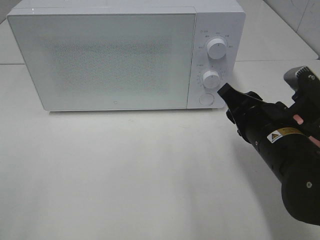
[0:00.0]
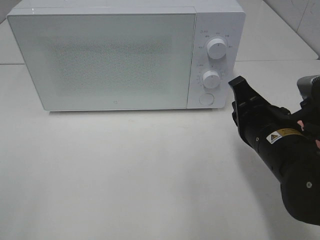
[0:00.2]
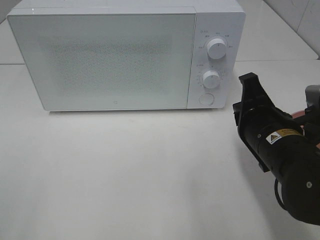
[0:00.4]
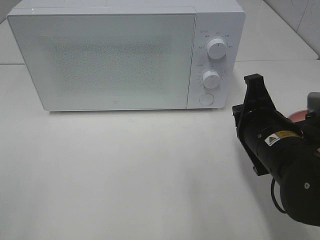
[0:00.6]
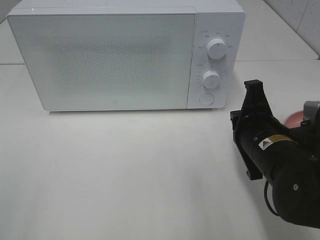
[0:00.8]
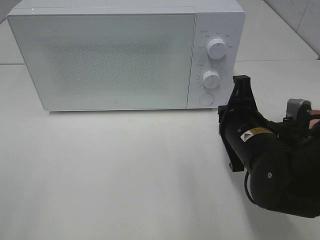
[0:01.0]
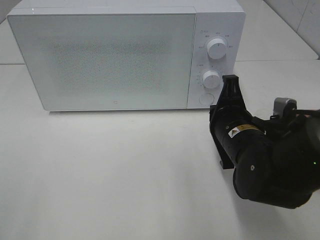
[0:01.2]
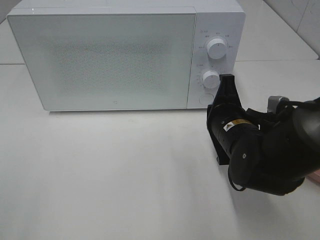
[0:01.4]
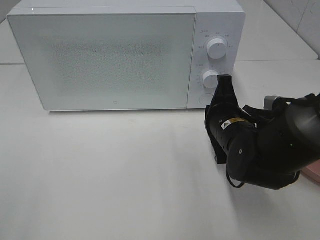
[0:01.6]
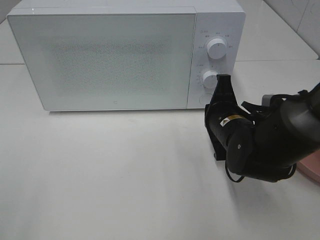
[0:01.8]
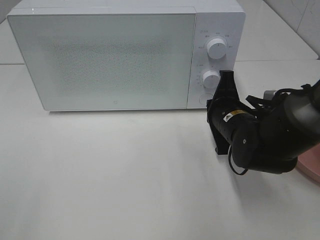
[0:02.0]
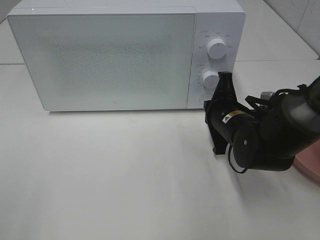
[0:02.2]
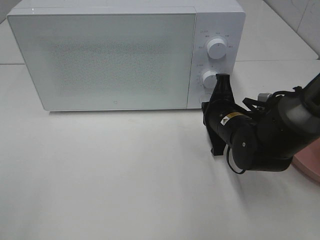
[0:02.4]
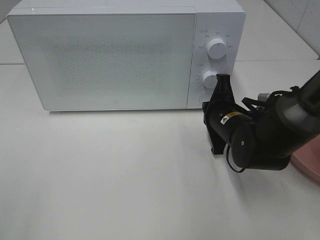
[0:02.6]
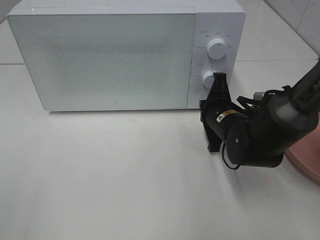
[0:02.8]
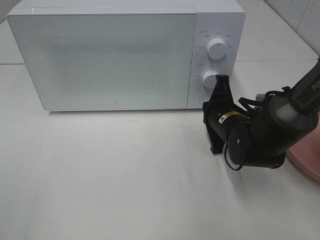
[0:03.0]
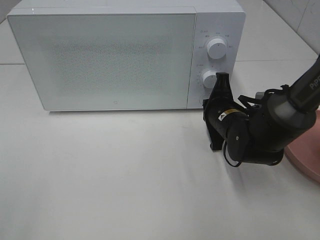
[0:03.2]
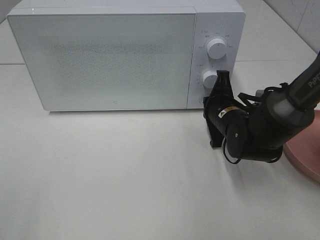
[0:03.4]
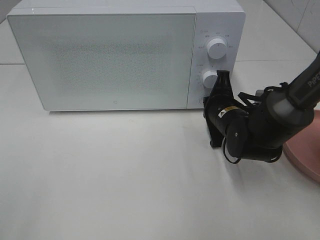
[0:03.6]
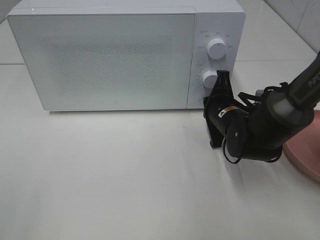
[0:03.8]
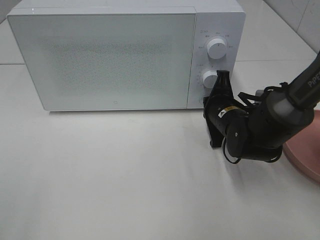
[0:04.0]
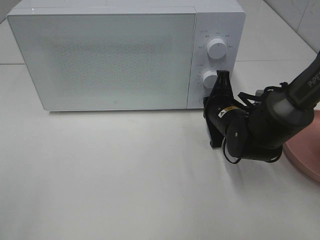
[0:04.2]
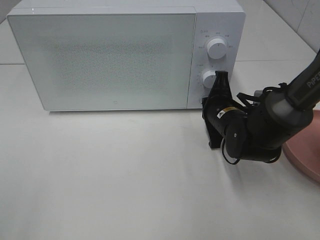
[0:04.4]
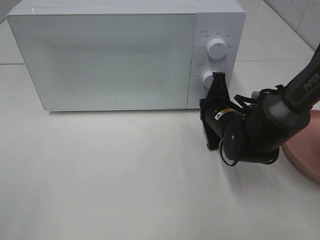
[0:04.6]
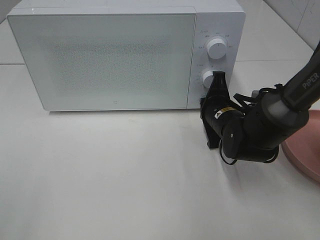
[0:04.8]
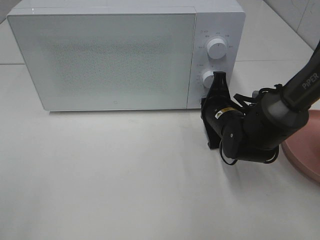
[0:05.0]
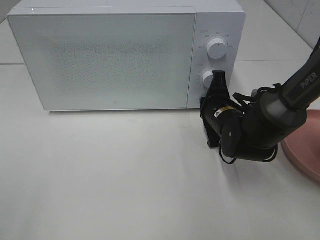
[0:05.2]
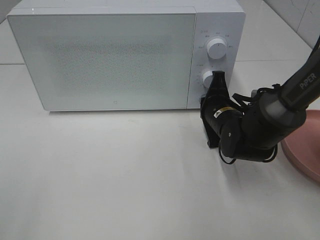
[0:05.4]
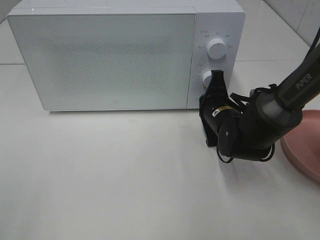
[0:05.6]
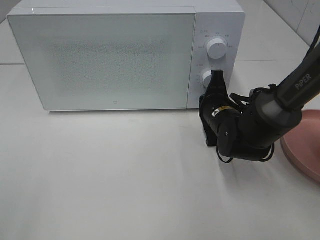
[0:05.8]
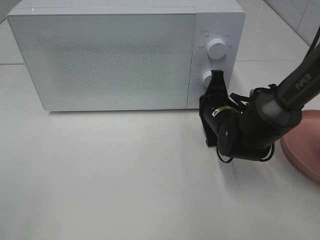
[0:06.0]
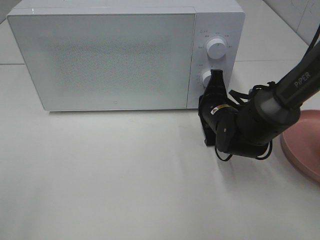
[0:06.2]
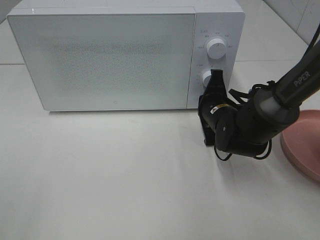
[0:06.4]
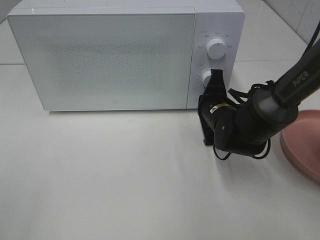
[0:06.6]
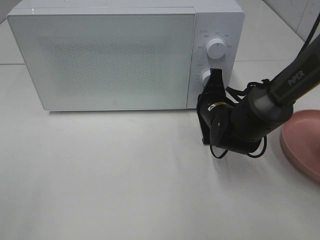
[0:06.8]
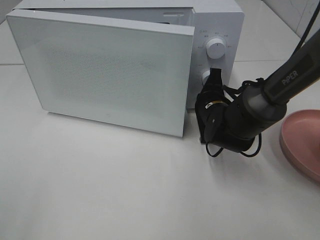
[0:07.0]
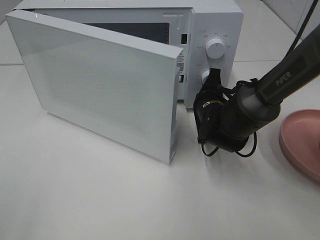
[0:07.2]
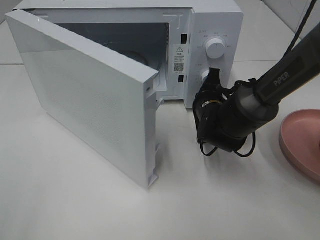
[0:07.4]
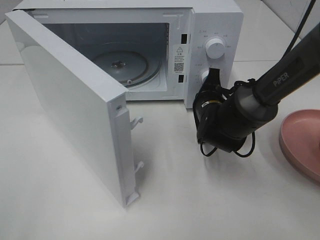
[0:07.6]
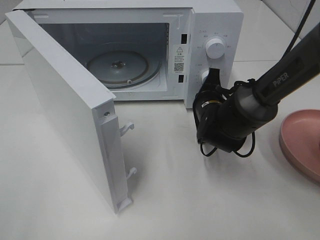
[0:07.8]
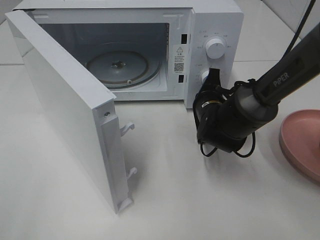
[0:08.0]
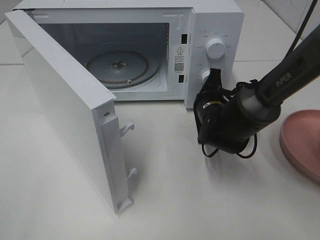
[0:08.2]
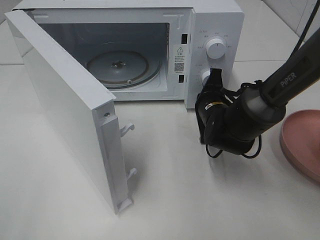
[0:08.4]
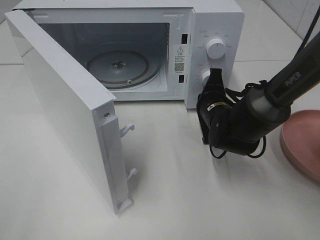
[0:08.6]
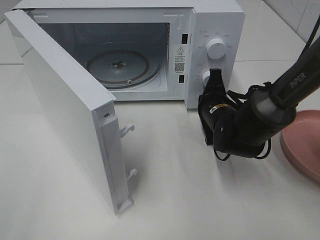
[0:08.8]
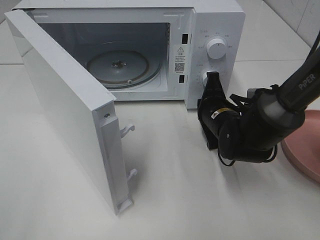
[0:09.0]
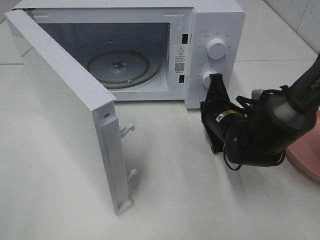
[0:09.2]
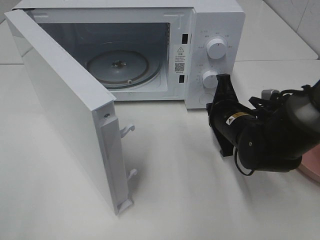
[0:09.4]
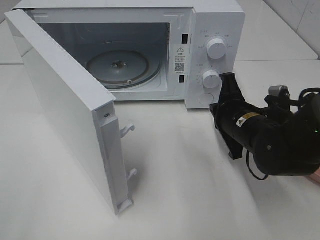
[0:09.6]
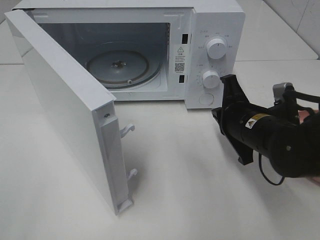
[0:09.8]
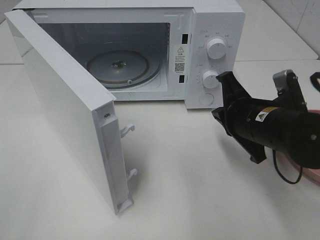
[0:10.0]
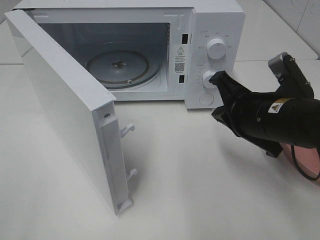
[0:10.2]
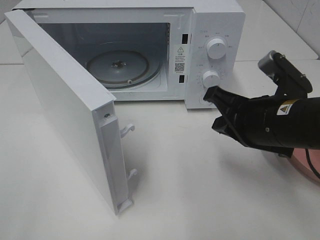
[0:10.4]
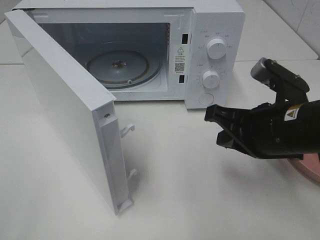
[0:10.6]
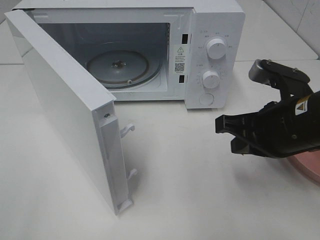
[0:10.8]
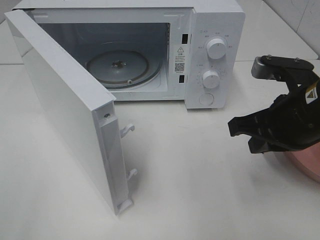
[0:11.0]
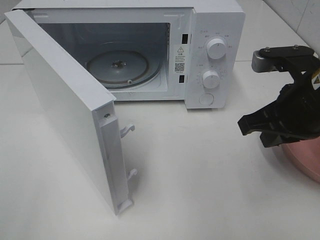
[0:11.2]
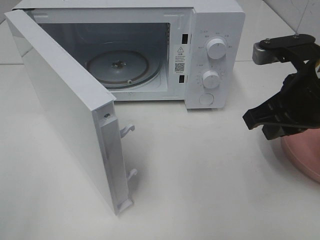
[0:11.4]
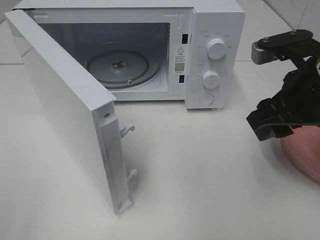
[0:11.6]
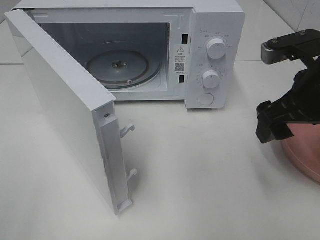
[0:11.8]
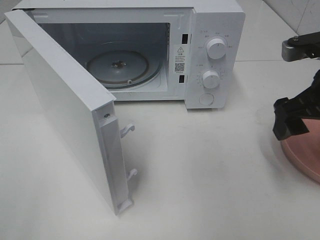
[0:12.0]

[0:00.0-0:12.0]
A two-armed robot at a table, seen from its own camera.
Task of the whole recording: Heat the burger.
Step, 0:00.0 to 0:09.0: Right hand: press the switch.
0:00.0 to 0:01.6: The right gripper shifts about 5 cm forward, and closes its fingers.
0:01.6 to 0:03.0: The right gripper is displaced forward by some 5 cm.
0:03.0 to 0:04.4: Neither gripper changes place.
0:04.4 to 0:06.0: Both grippers stay put.
0:07.6 to 0:09.0: The grippers make only small movements.
0:09.0 to 0:10.4: The right gripper travels backward and upward by some 15 cm.
0:10.4 to 0:12.0: The right gripper is displaced to the right and upward by roughly 10 cm, and opens.

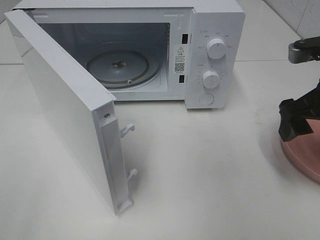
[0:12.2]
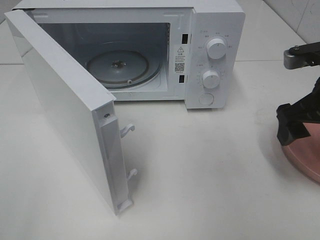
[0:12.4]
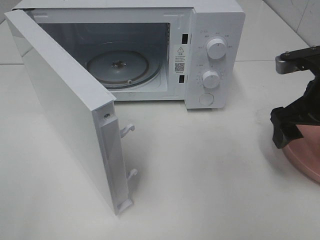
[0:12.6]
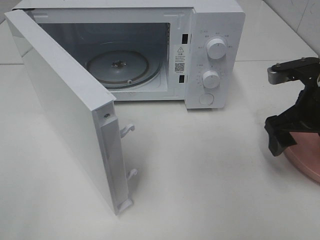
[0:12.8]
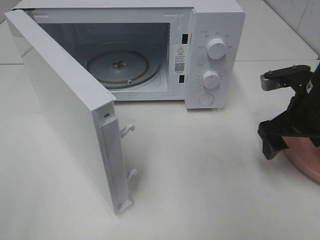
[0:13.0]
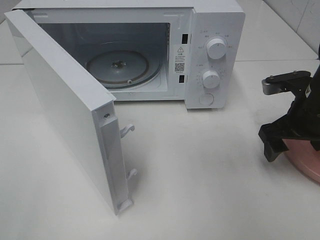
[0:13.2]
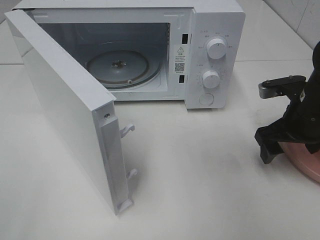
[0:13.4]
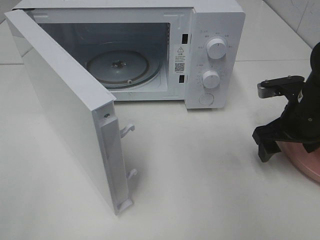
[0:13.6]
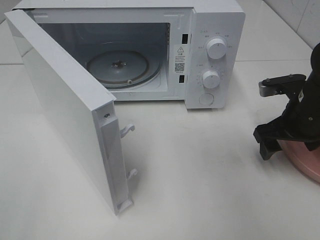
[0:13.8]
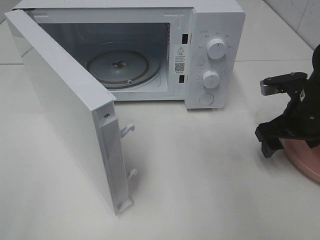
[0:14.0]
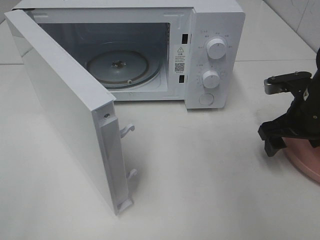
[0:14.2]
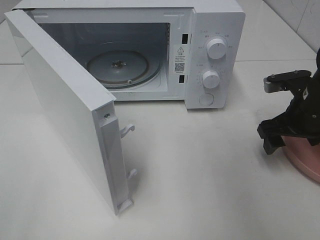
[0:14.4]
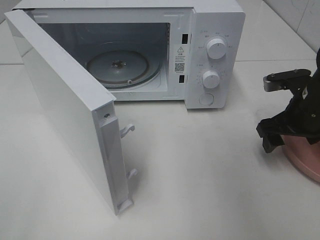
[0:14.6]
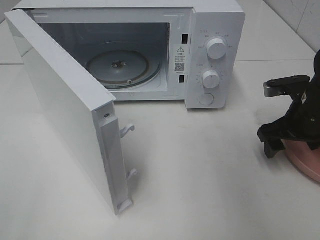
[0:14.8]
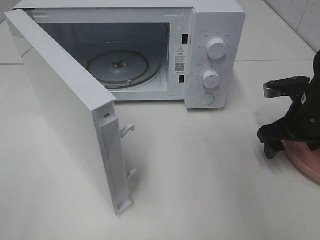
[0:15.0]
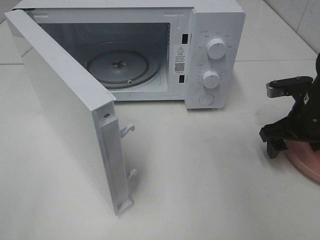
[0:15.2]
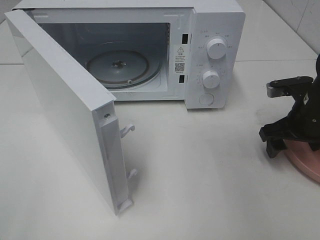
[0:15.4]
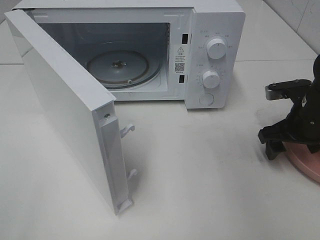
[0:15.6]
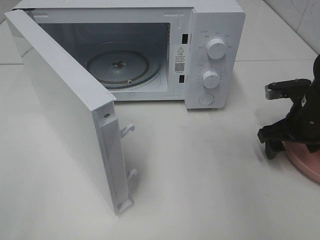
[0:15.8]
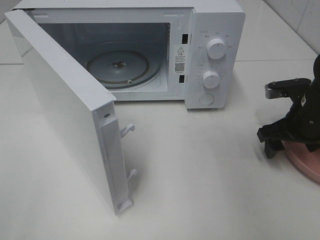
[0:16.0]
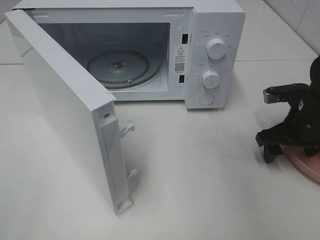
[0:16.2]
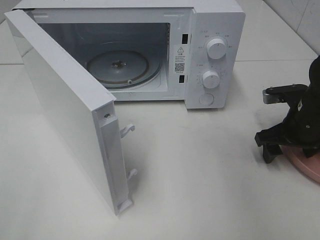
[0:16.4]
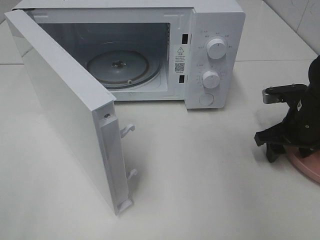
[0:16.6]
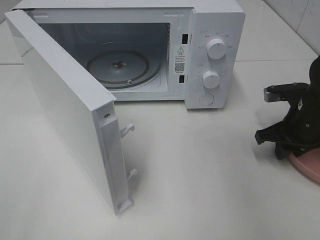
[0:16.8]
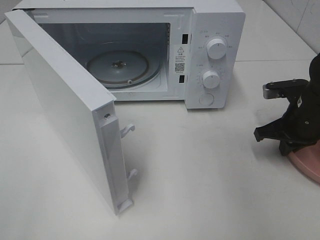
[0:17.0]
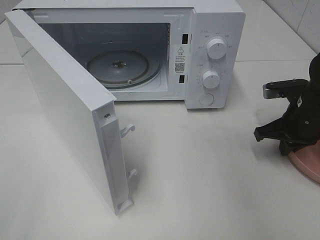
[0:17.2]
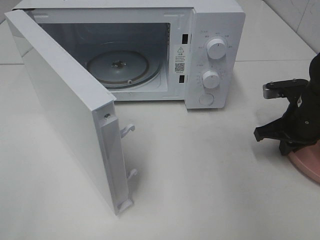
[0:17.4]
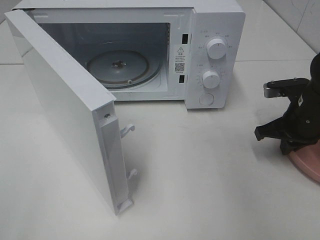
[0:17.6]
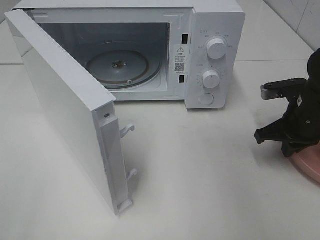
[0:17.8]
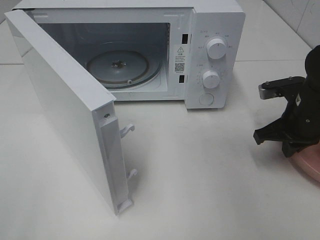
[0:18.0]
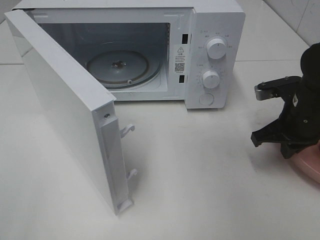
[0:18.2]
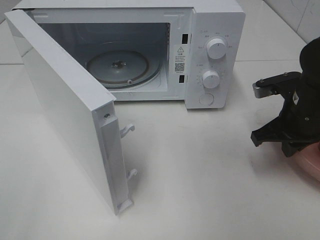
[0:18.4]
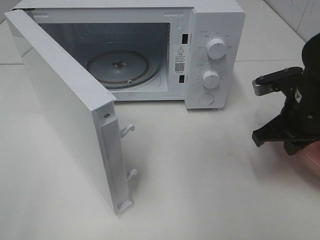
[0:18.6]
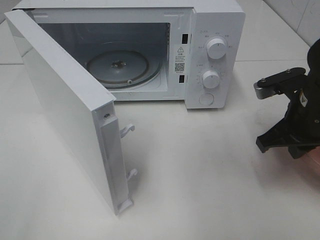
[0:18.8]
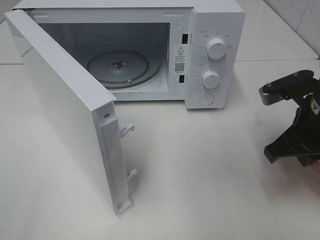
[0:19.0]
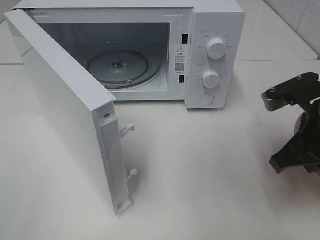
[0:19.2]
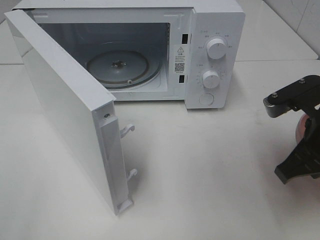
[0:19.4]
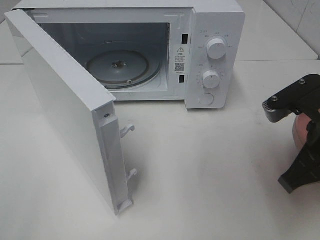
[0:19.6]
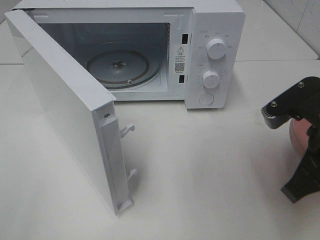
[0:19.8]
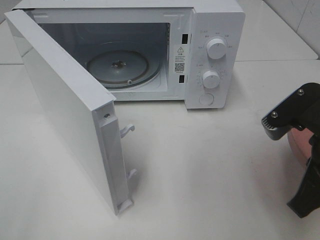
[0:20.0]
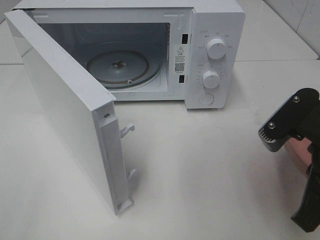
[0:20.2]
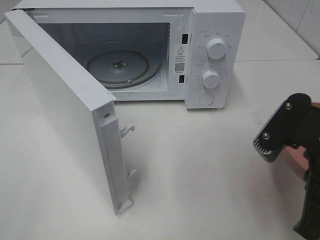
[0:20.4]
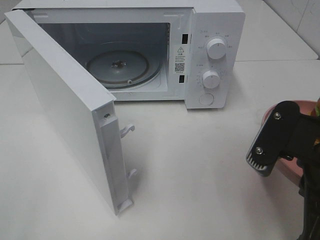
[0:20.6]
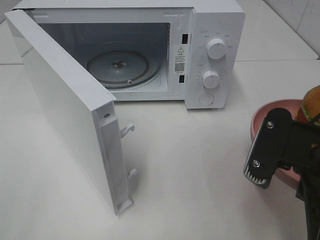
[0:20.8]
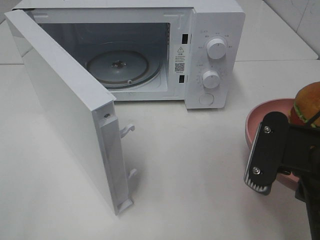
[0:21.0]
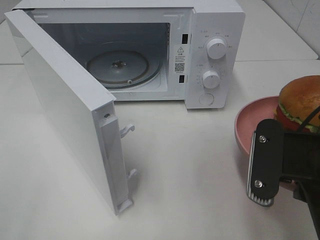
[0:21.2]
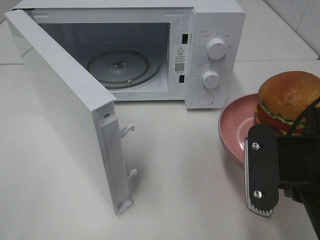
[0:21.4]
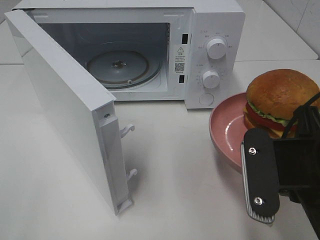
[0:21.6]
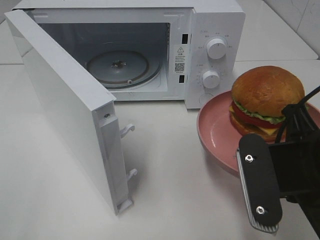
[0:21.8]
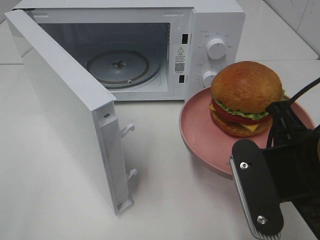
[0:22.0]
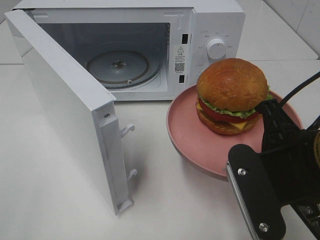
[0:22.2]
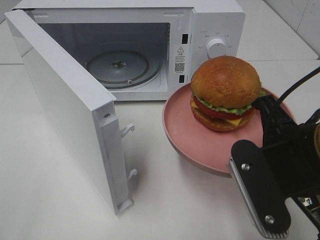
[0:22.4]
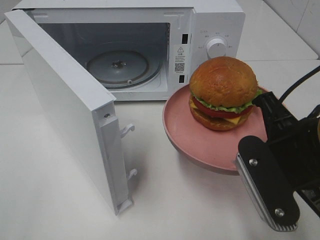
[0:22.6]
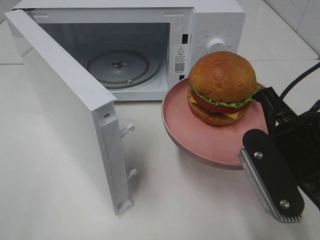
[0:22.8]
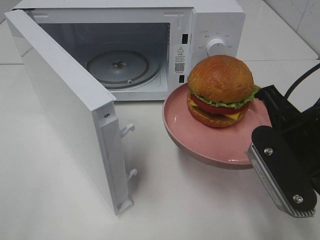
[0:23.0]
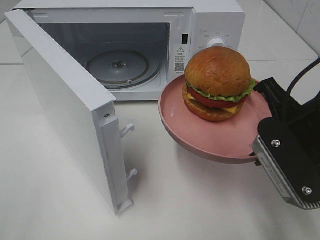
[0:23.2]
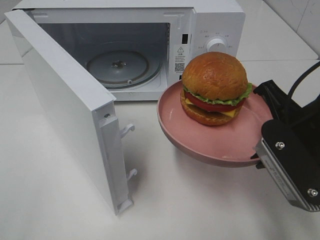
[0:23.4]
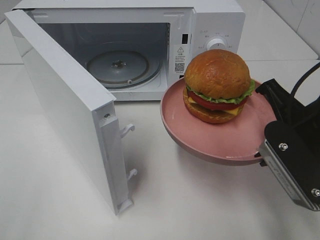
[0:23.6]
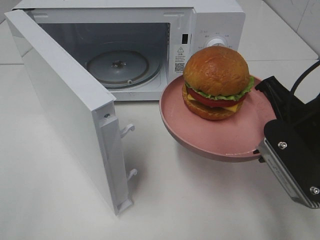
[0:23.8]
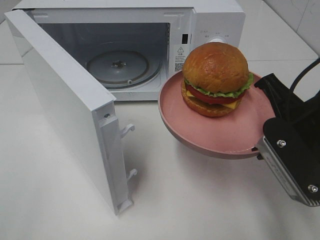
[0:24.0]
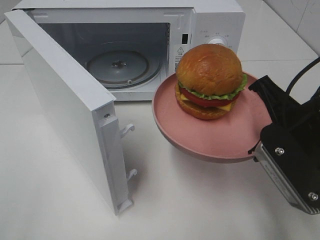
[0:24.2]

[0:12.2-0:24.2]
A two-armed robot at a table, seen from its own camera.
Task of the whole recording: Heat the burger.
Step, 0:12.2 to 0:17.0: Right hand: grab the plate with the hamburger.
0:12.2 to 0:13.8: The right gripper heads downward, covering roughly 10 cm.
0:13.8 to 0:16.6: The grippers stay close to where they were, moving slightly.
0:16.6 to 0:18.2: The right gripper closes its fingers.
0:18.2 to 0:19.8: The right gripper shifts roughly 15 cm backward and upward.
0:19.8 to 0:21.2: The right gripper changes place by roughly 5 cm.
0:22.6 to 0:24.2: The grippers stay close to where they were, moving slightly.
